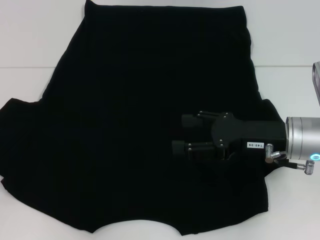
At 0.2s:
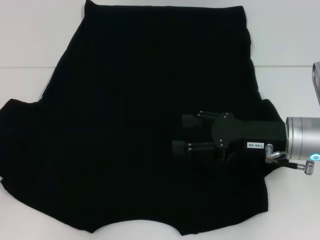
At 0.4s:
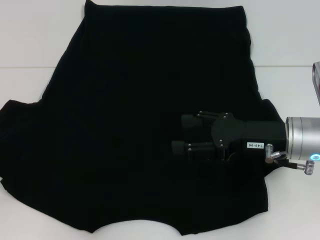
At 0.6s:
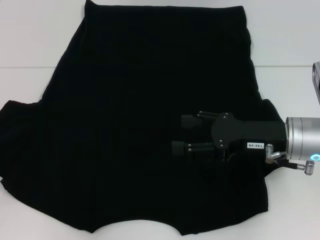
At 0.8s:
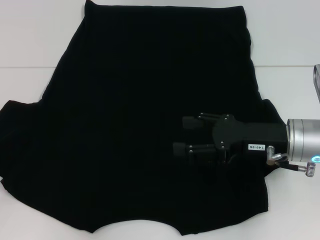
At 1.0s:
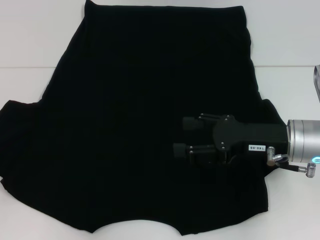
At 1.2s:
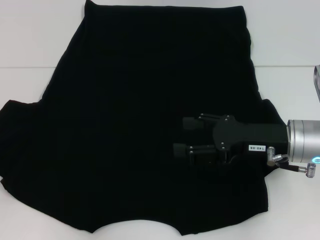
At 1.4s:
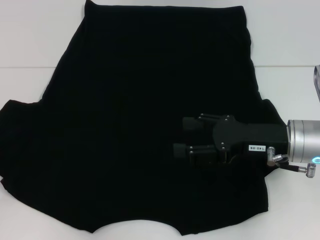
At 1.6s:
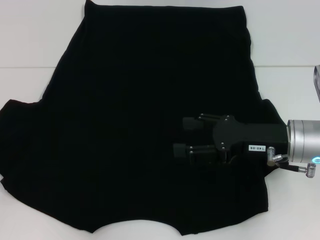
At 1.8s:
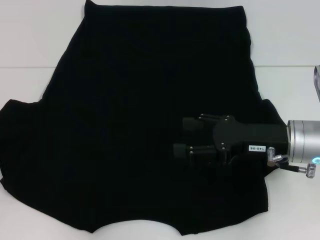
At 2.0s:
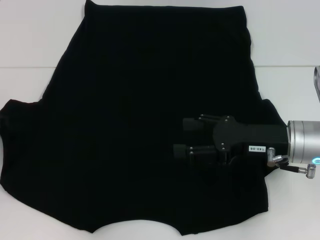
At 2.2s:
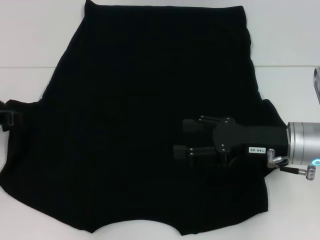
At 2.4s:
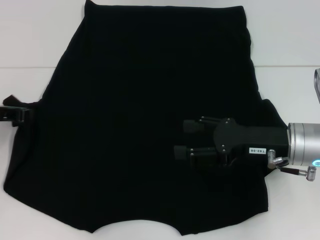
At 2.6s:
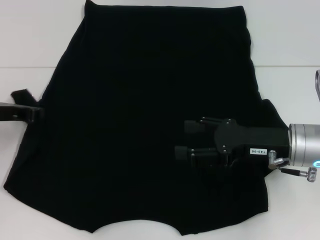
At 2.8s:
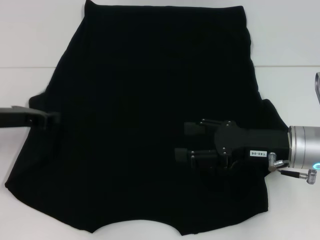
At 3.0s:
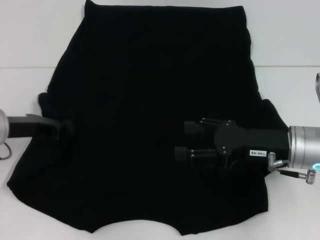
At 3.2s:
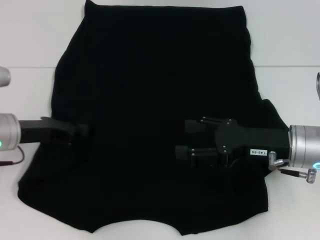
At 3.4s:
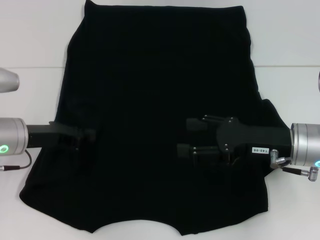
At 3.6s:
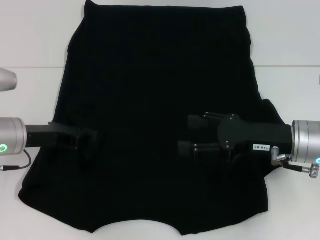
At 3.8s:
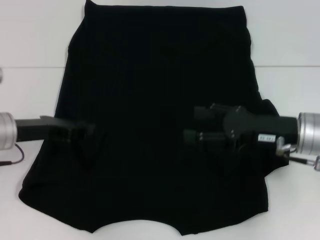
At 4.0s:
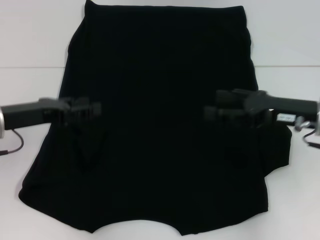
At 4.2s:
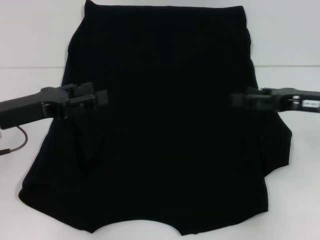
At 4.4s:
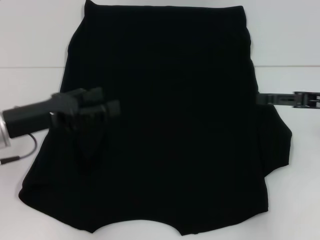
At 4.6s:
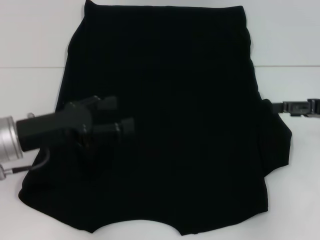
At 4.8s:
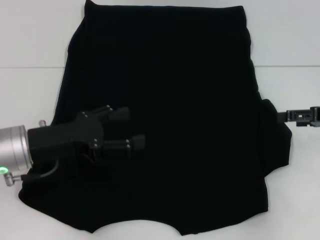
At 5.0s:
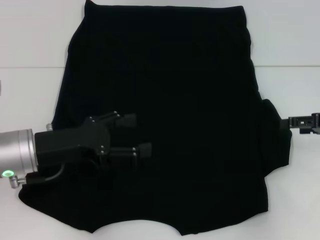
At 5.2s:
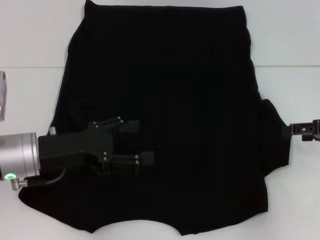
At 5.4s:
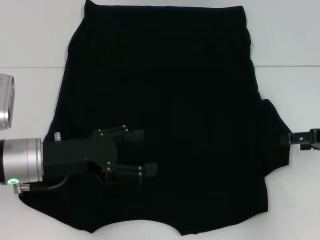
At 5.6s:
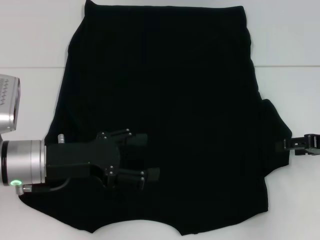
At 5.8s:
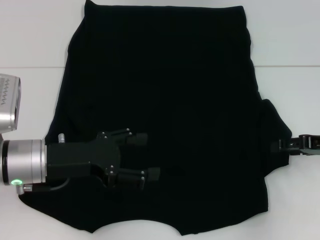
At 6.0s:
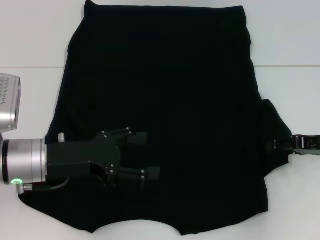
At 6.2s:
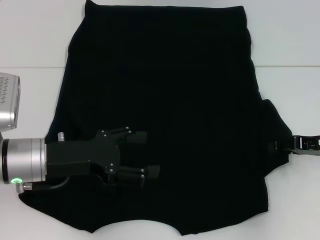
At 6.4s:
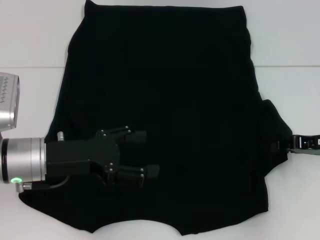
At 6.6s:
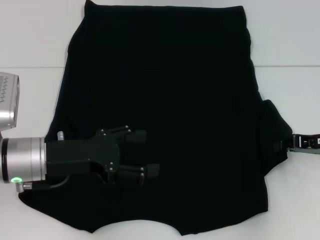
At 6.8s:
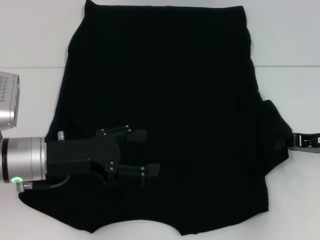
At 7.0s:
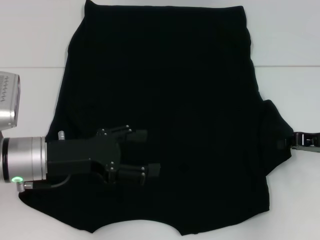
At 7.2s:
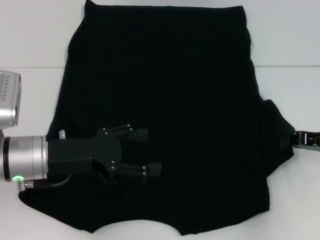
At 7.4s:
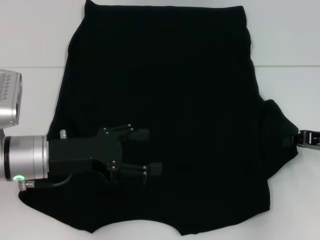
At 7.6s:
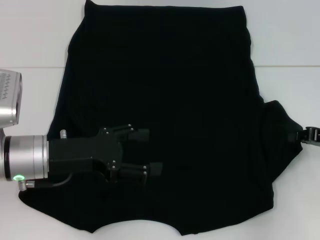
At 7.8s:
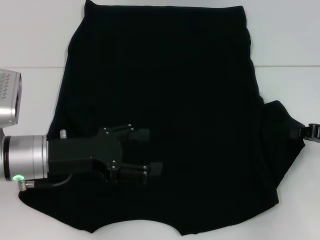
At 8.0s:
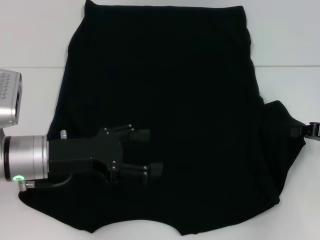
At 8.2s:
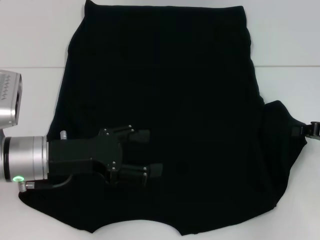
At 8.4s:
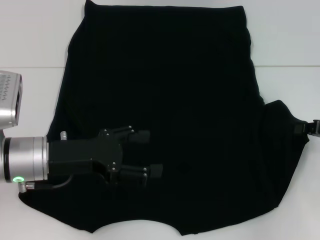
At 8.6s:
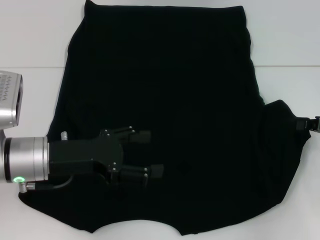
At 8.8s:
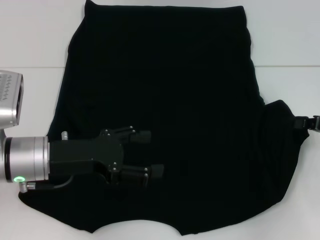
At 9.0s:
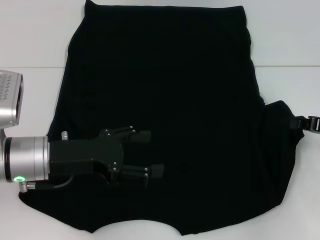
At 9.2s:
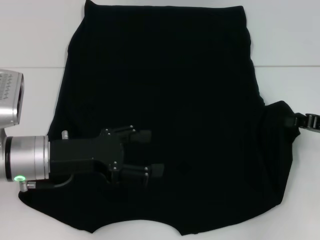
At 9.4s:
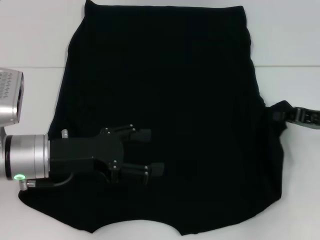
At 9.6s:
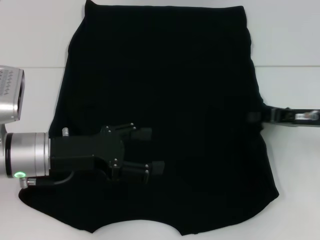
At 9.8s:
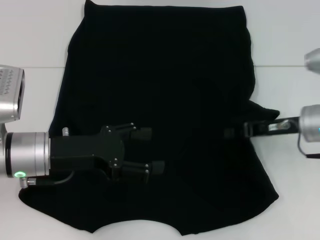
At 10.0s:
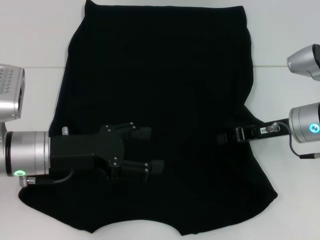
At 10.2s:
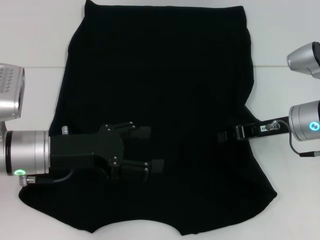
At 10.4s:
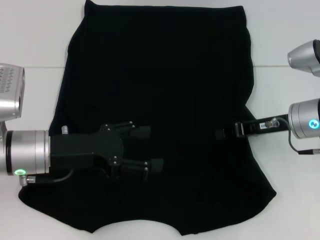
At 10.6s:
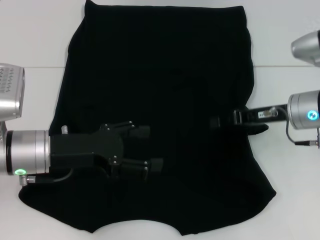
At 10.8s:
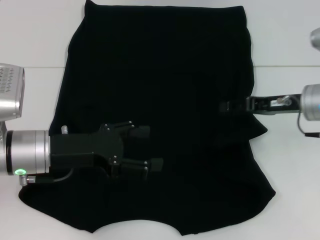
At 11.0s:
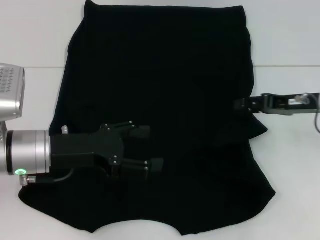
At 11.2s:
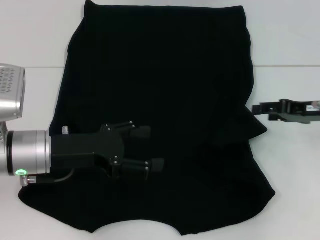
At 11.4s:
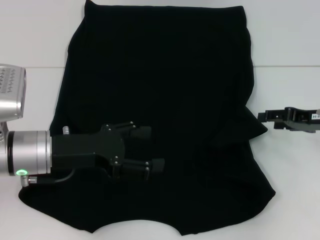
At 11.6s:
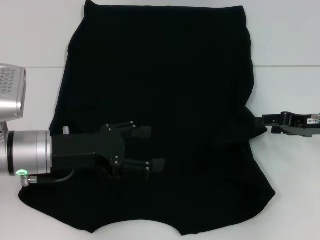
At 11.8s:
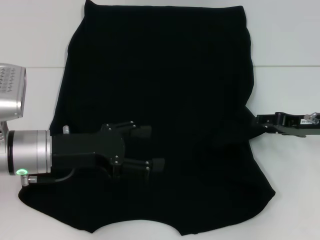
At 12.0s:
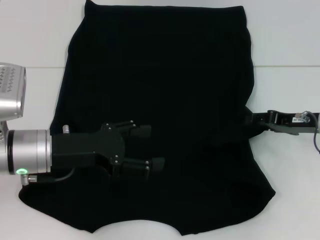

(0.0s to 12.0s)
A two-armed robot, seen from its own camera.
Step, 0.0s - 3.4s: Fold the bottom left sleeve with your left hand.
0.0s - 1.6s: The grippers stay close to where they were, moving slightly.
1.6s - 3.0s: The left gripper goes roughly 10 cm to the right.
3.0s - 4.4s: The right gripper moves to the right, roughly 10 cm. The left gripper opens.
4.4s - 6.0s: The right gripper moves downward, approximately 5 cm. The left gripper shifts by approximately 5 cm.
6.0s - 7.6s: The right gripper closes.
7.6s - 9.0s: The grippers make only small movements.
9.0s - 10.4s: The right gripper is displaced to the left by roughly 10 cm.
10.4s - 12.0s: The right gripper goes approximately 5 cm to the right, and opens its fingers.

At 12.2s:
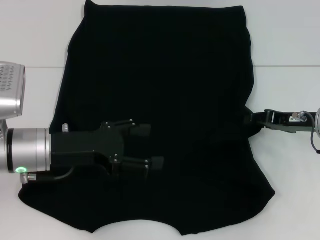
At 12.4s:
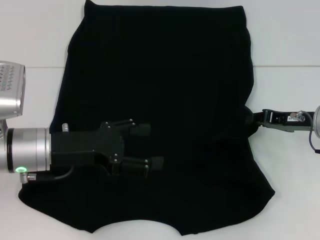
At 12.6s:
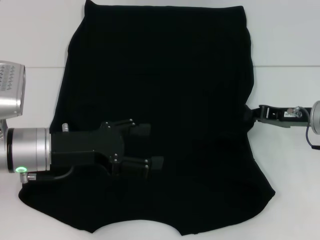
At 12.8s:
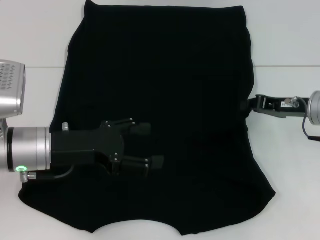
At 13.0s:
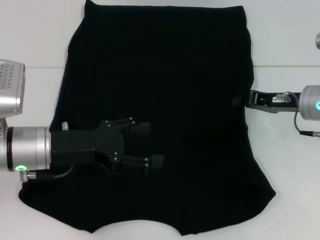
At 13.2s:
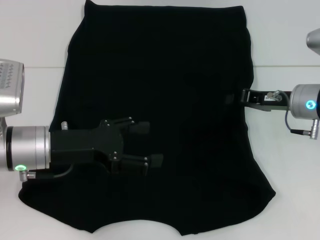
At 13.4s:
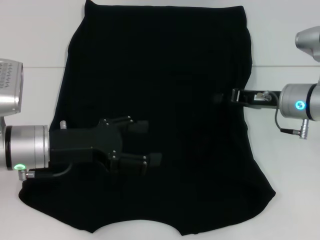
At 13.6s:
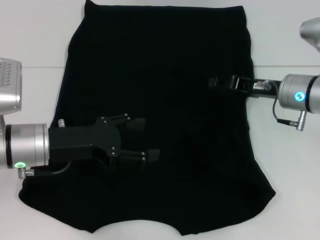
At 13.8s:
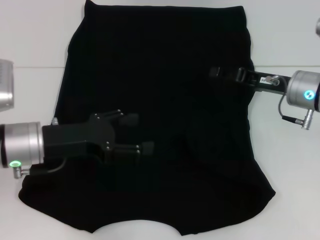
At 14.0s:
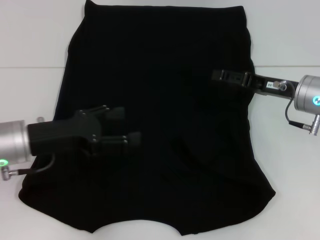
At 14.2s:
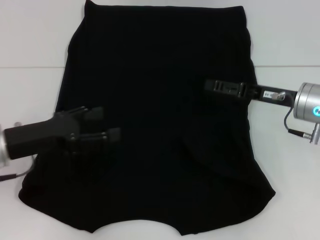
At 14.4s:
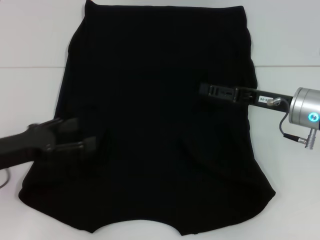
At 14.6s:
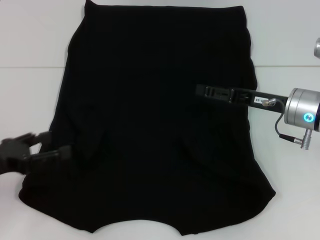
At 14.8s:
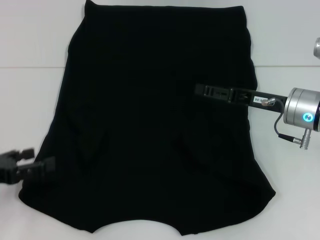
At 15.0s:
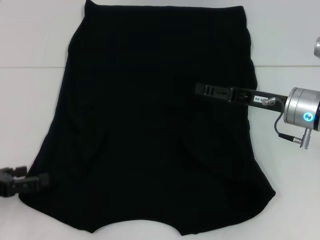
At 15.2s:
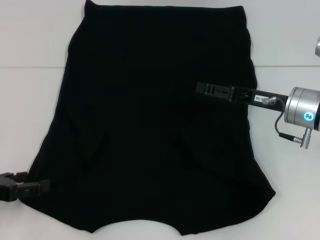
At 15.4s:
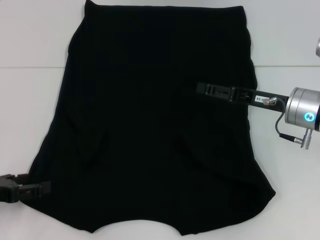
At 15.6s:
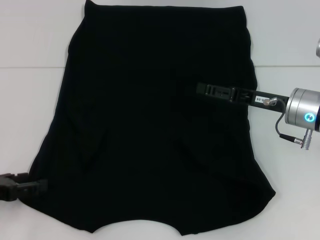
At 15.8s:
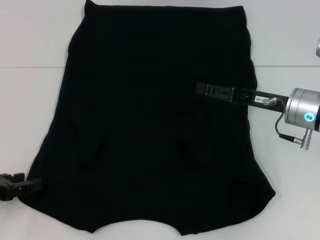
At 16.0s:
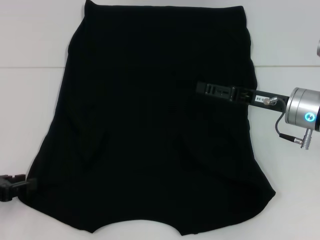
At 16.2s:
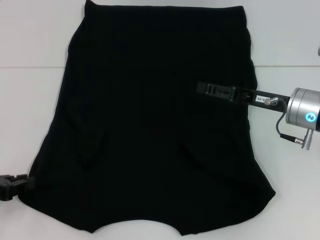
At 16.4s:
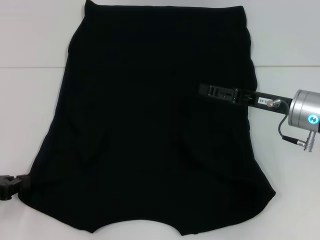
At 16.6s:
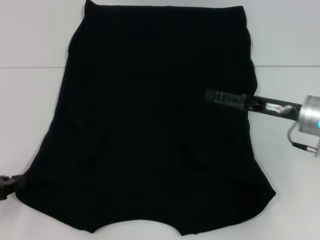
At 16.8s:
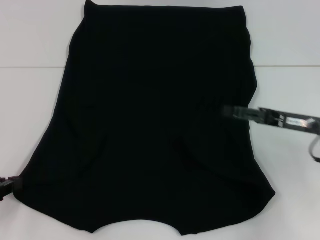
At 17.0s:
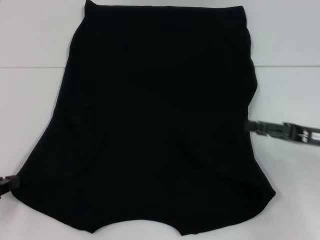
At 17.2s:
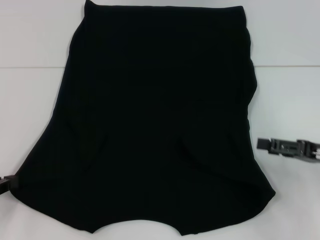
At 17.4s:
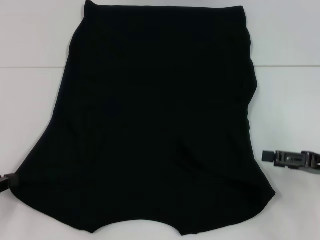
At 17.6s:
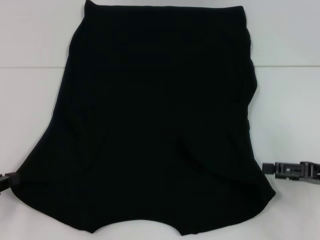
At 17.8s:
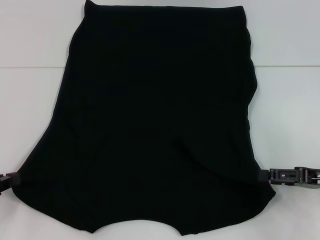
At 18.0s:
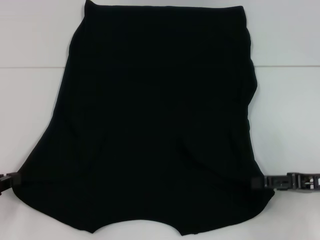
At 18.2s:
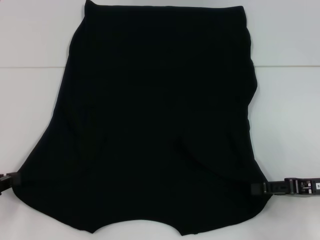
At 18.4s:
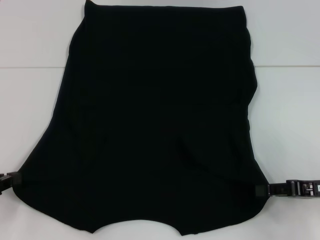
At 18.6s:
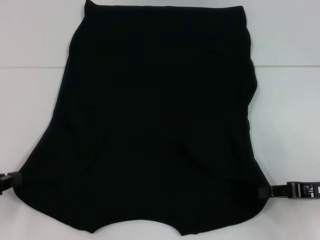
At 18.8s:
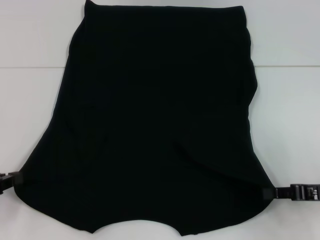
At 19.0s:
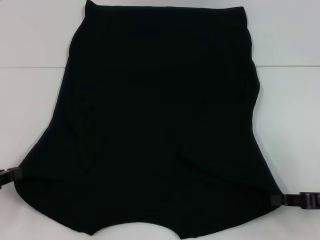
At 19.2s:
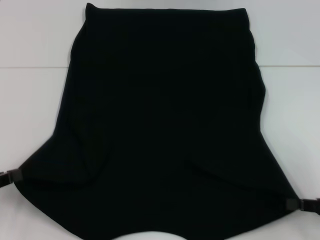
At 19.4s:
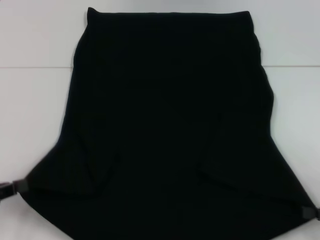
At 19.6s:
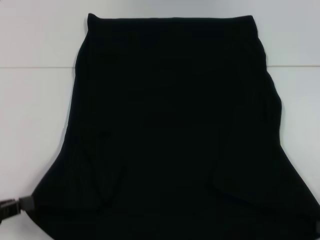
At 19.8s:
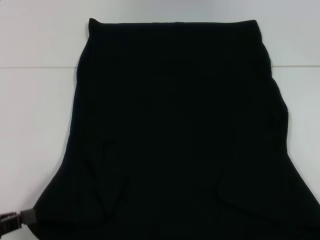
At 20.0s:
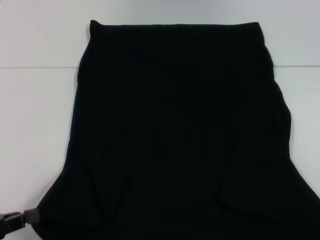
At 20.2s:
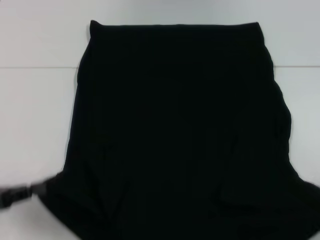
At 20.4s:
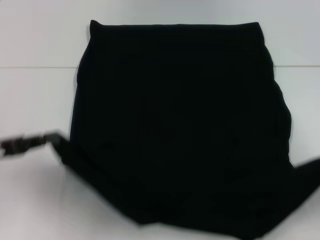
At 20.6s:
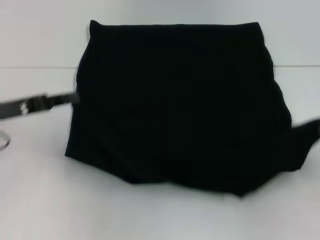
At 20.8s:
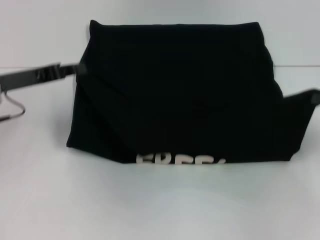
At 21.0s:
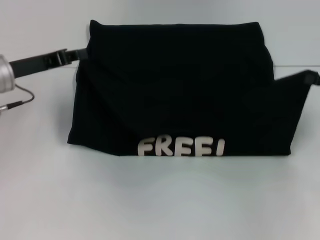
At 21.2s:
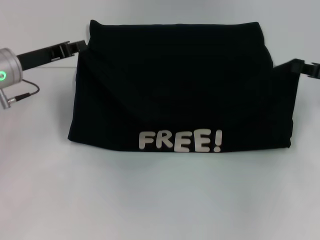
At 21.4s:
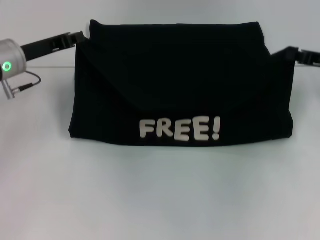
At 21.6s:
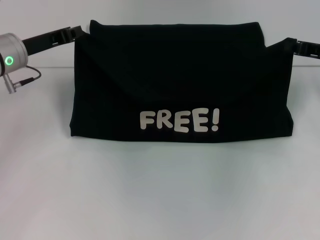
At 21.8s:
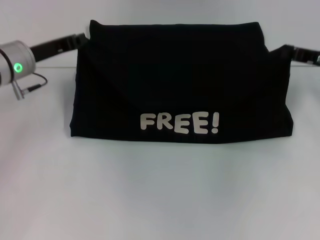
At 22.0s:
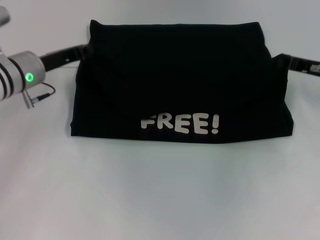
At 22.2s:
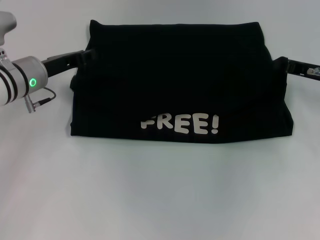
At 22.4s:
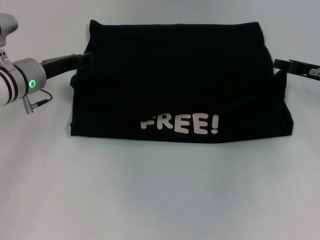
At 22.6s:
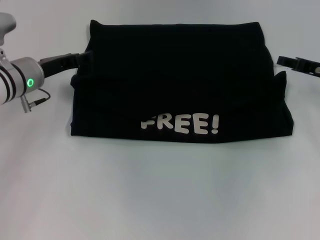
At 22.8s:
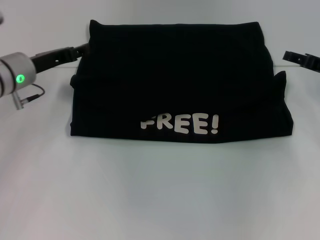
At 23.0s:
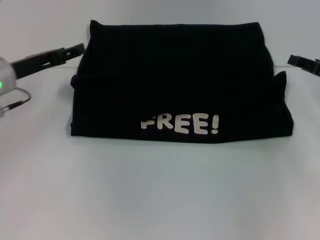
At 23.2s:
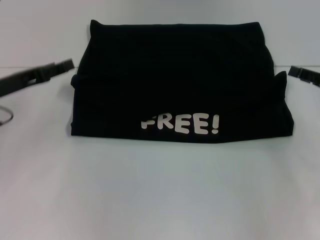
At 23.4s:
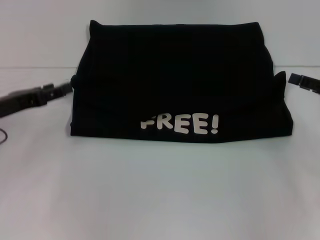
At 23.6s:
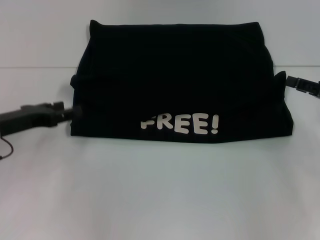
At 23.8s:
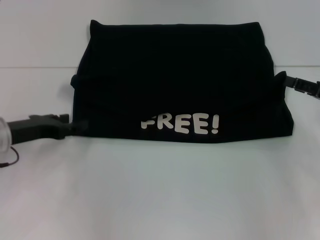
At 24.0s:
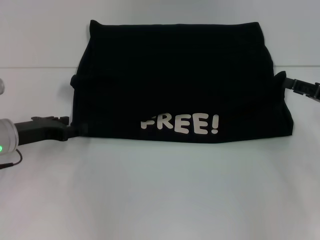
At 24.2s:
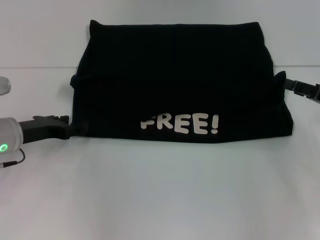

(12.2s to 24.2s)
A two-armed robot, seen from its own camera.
Step, 14.0s - 16.8s: Grab the bottom left corner with your left hand.
Step, 17.0s - 18.8s: Grab the bottom right corner with your right hand.
Step, 19.0s - 22.4s: Fold the clothes with your left hand.
Step, 19.0s - 22.4s: Fold the clothes with your right hand.
12.2s - 13.8s: The right gripper shifts by roughly 5 cm, and closes and opens again.
13.8s - 15.2s: The left gripper moves to the left and backward, roughly 15 cm, while the right gripper opens.
15.2s - 16.6s: The left gripper closes up.
16.6s - 18.2s: The right gripper moves to the right and backward, some 10 cm.
18.2s - 19.8s: The right gripper goes some 15 cm backward and to the right, and closes up. Meanwhile the left gripper travels backward by about 5 cm.
19.8s - 21.2s: Both grippers move forward, some 25 cm.
21.2s - 22.6s: The left gripper opens its fingers.
22.6s - 24.2s: Both grippers move backward, about 10 cm.
